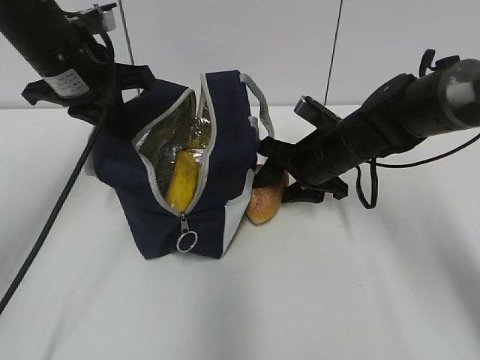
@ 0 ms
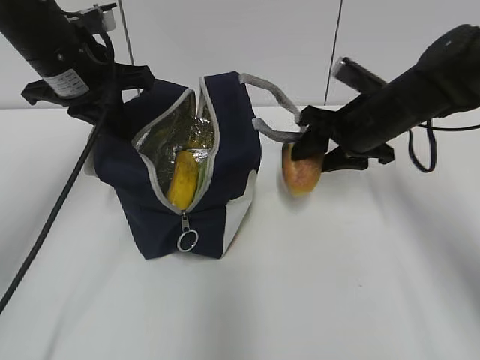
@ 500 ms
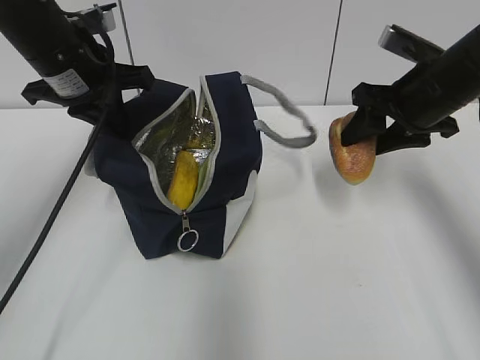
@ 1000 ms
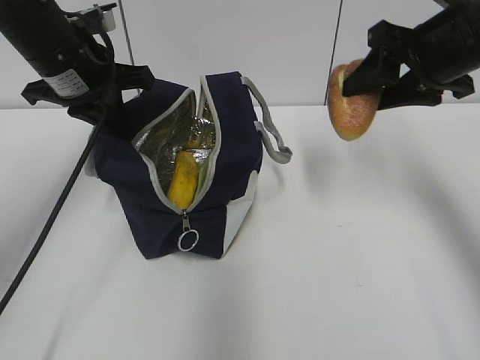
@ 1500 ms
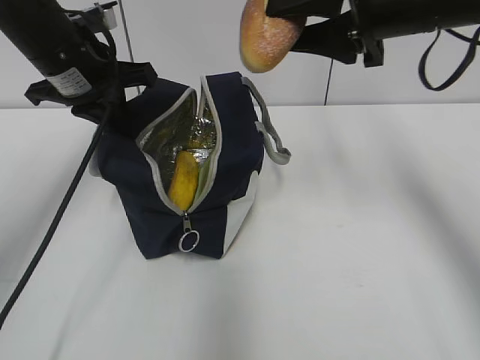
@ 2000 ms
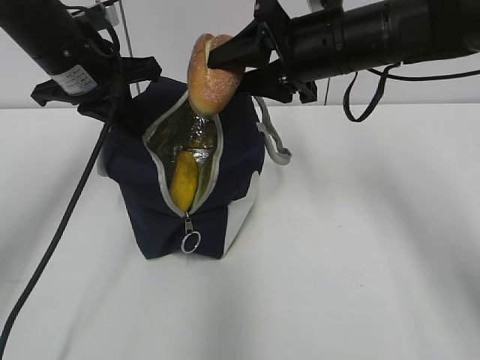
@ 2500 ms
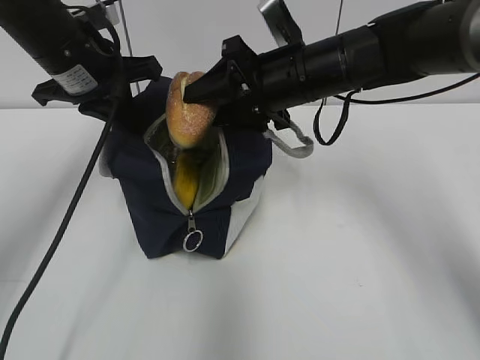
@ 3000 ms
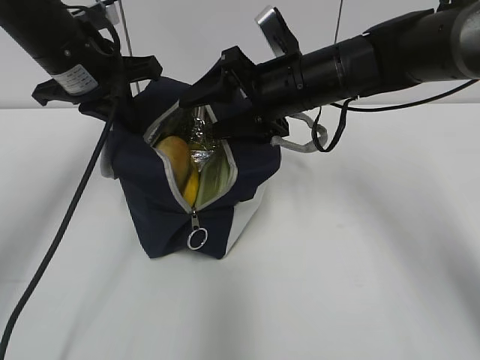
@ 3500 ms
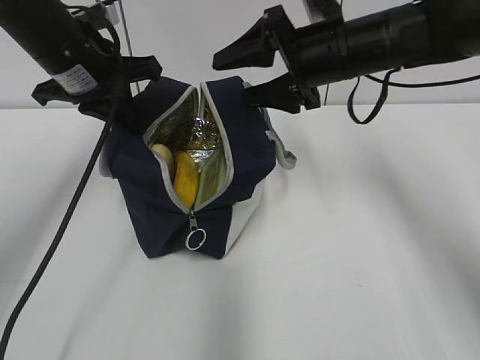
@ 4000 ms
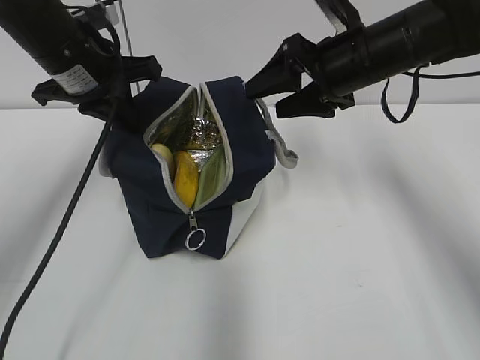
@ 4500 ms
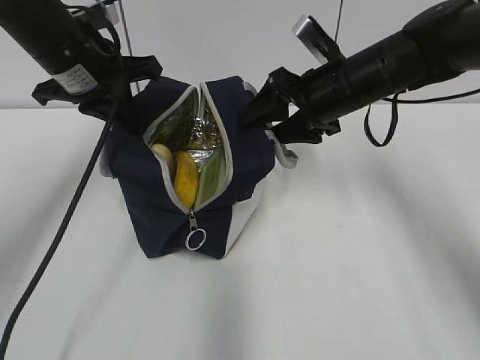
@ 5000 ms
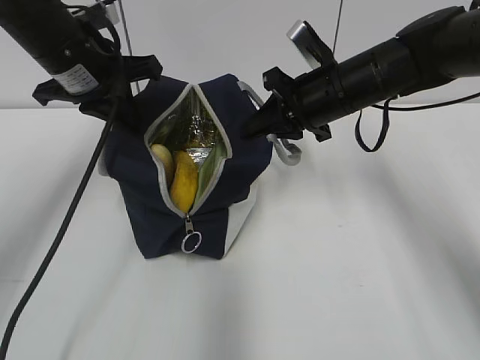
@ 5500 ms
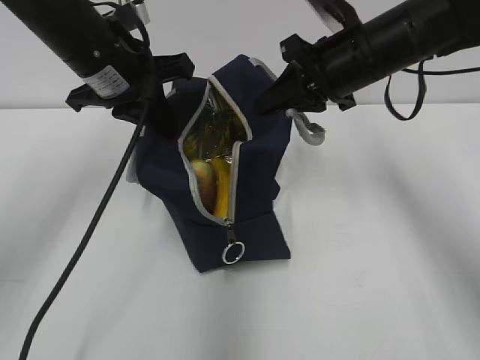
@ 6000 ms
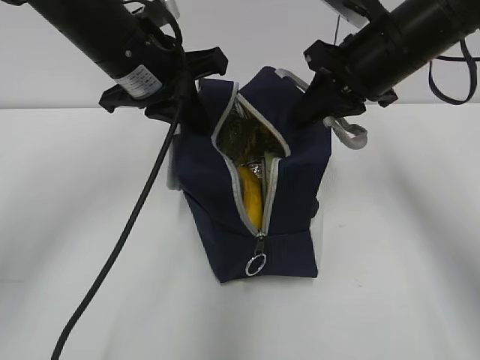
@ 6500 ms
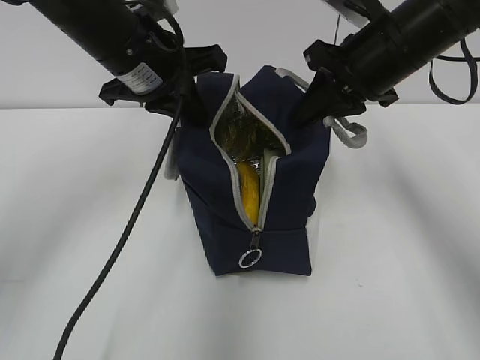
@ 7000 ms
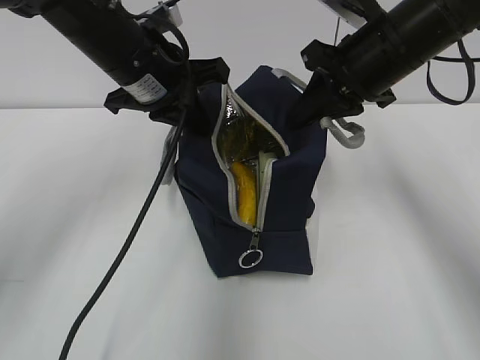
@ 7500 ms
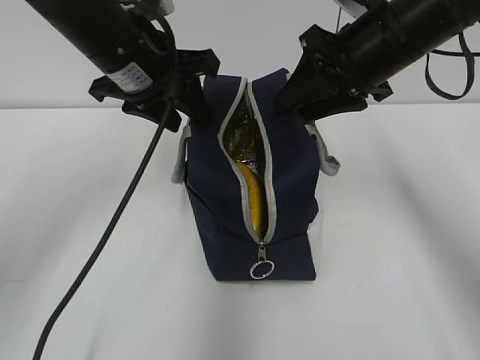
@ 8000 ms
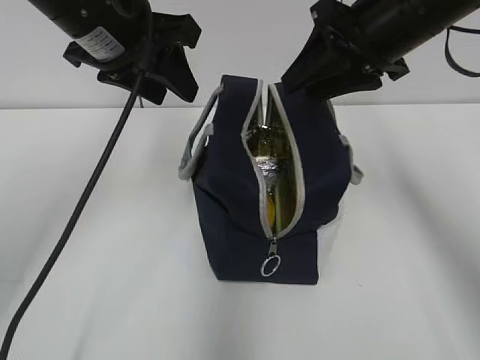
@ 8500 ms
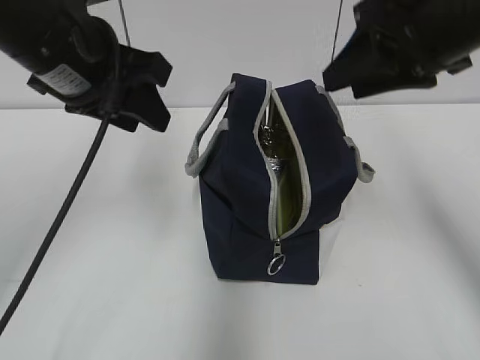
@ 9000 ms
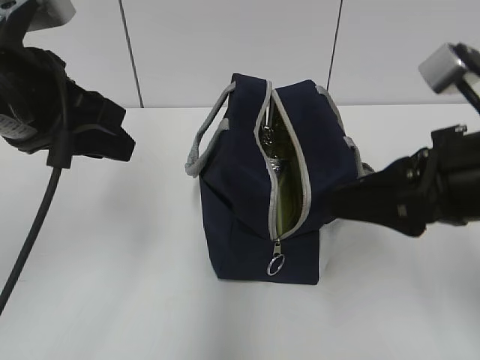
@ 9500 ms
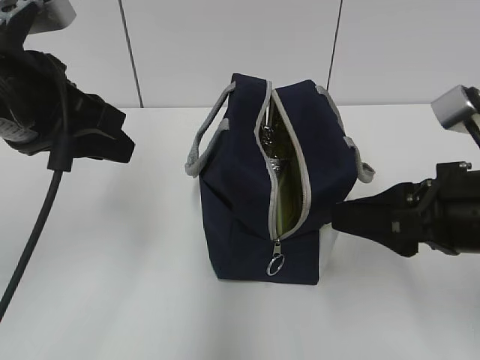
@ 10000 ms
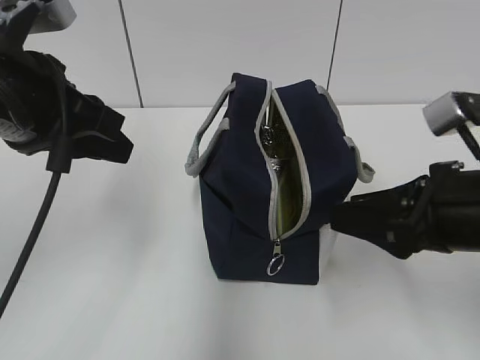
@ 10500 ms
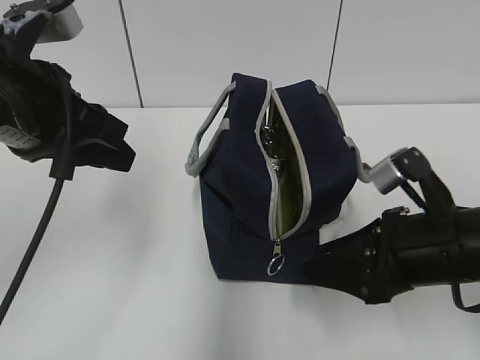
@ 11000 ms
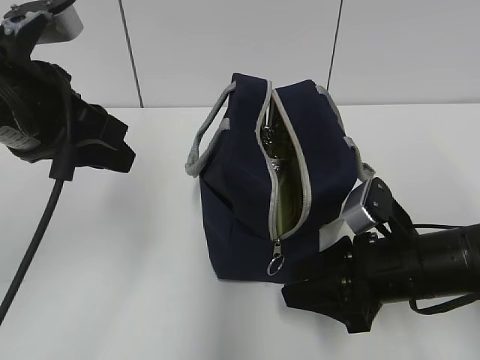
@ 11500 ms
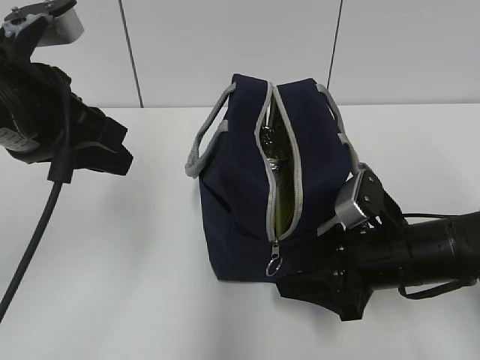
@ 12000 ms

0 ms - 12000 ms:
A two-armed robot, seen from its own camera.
Step, 4000 ms - 5000 ms: Grab the lunch bag with your right hand.
Step, 5500 ms - 7500 ms: Move the lunch bag to the right.
0 ms - 2000 ms: The right gripper moves upward, about 20 cm.
2000 ms - 4000 ms: The right gripper travels downward by about 5 cm.
4000 ms - 6000 ms: The right gripper closes its fingers.
6000 ms - 8000 ms: The right gripper opens; the left gripper opens up.
8000 ms - 10000 ms: The left gripper goes approximately 15 cm backward and to the left. Meanwhile the right gripper heads backward and downward, covering some 15 cm.
10000 ms - 12000 ms: The right gripper moves downward and forward, some 15 cm.

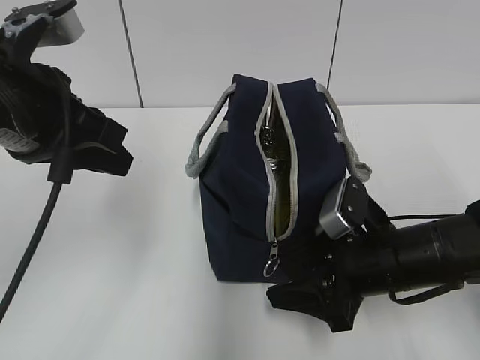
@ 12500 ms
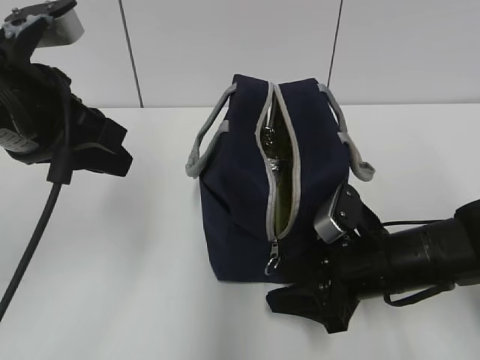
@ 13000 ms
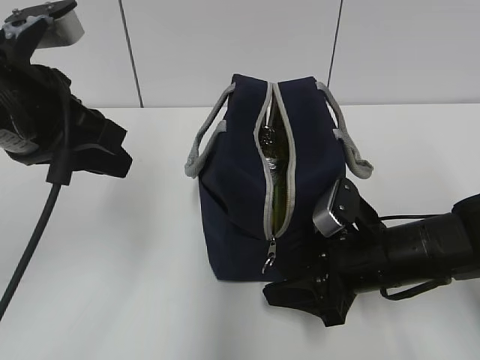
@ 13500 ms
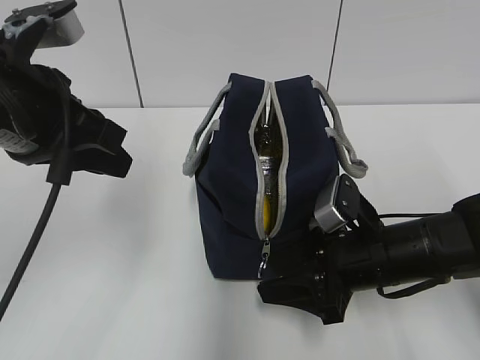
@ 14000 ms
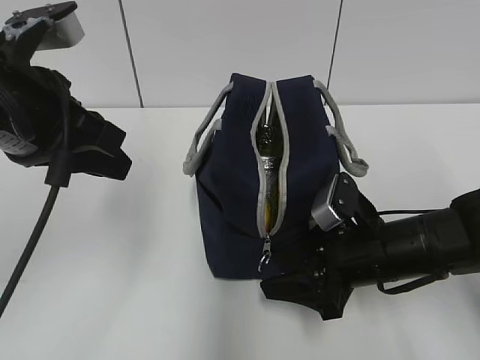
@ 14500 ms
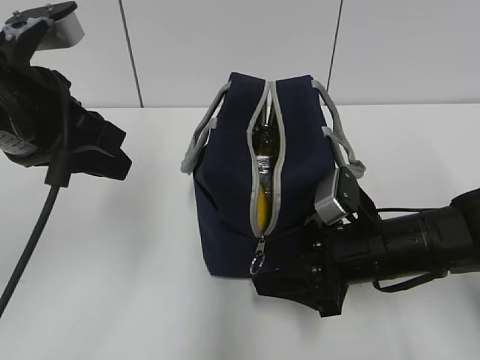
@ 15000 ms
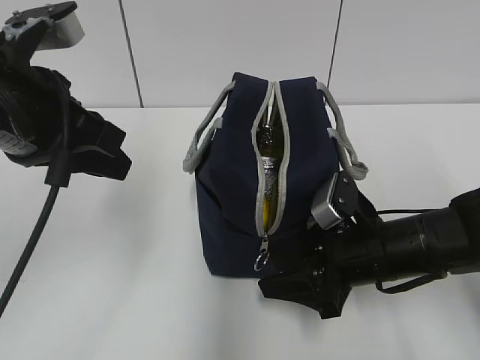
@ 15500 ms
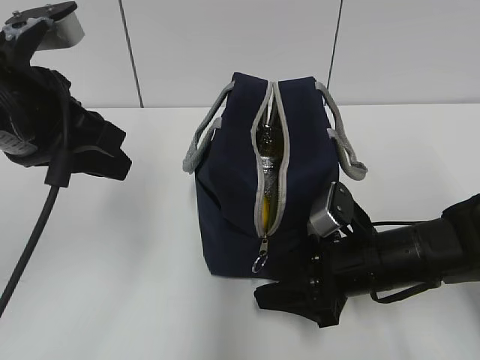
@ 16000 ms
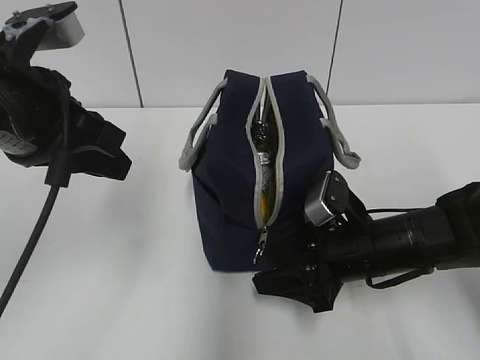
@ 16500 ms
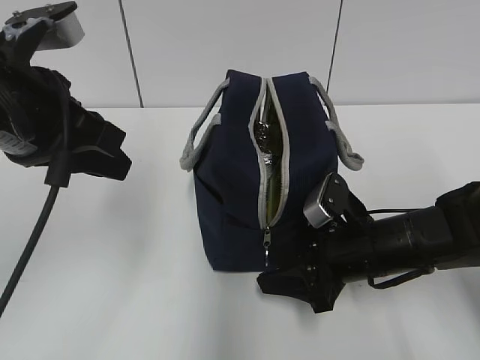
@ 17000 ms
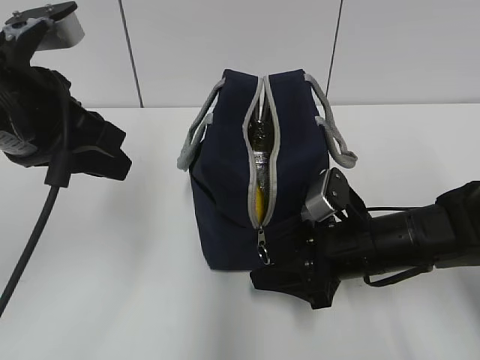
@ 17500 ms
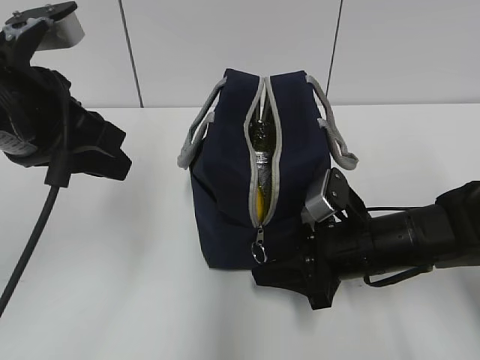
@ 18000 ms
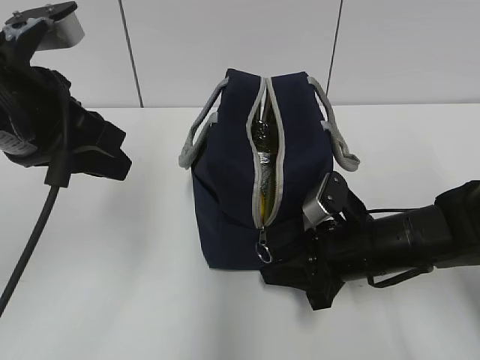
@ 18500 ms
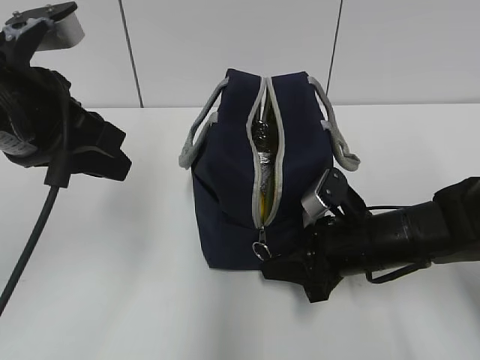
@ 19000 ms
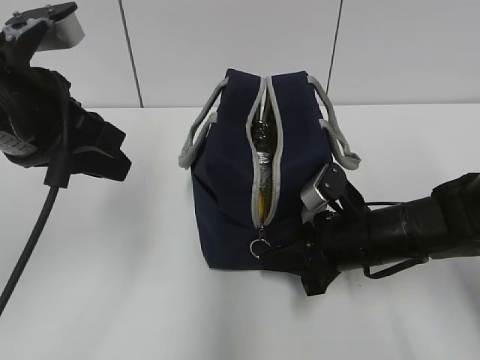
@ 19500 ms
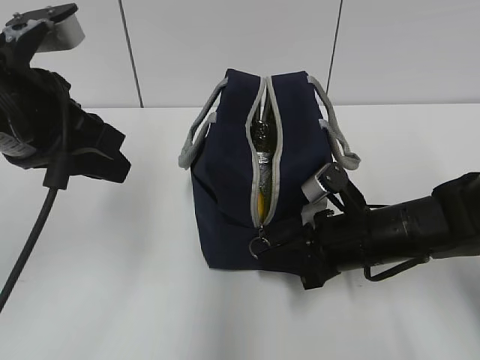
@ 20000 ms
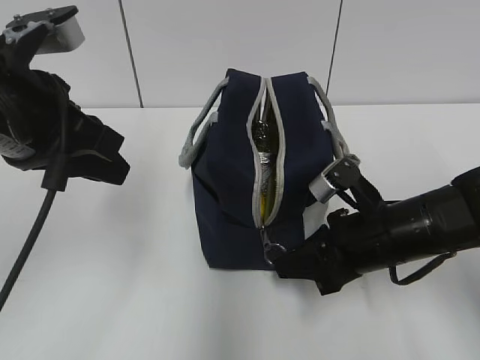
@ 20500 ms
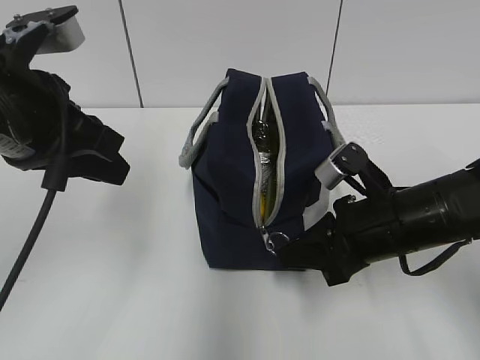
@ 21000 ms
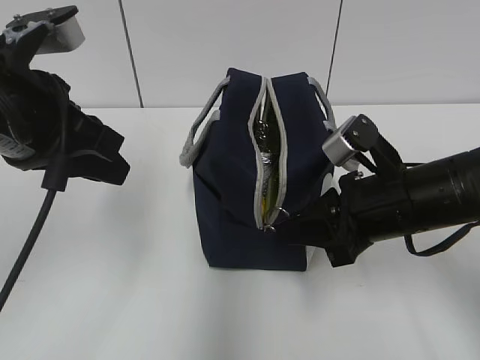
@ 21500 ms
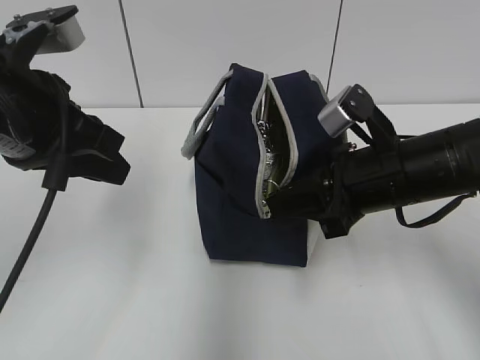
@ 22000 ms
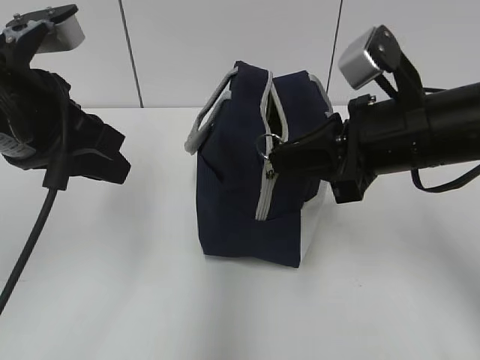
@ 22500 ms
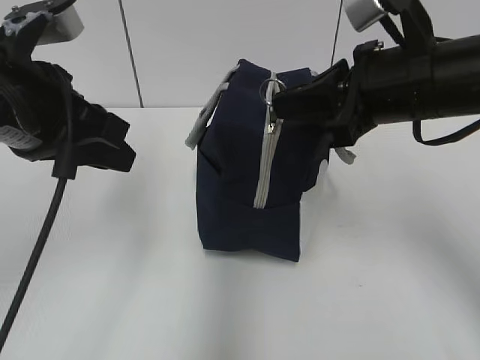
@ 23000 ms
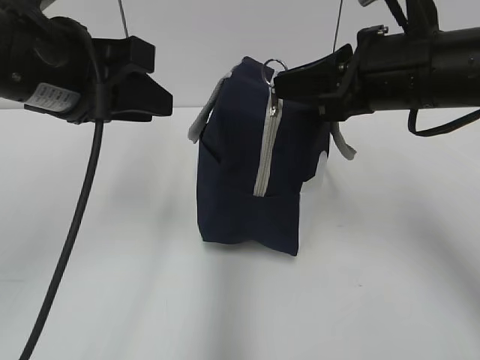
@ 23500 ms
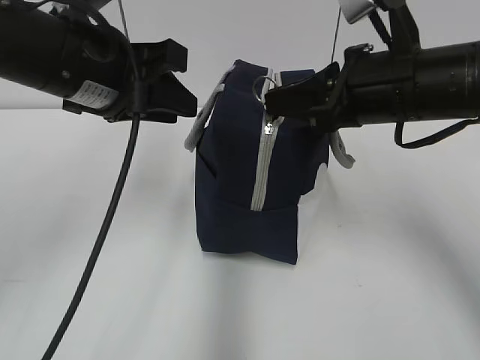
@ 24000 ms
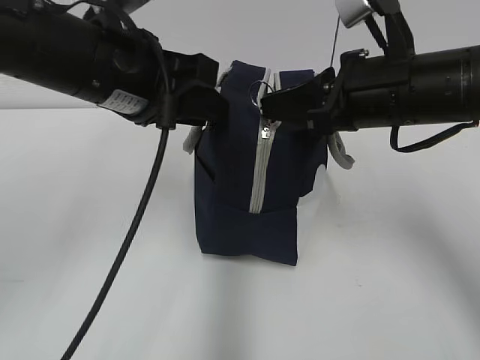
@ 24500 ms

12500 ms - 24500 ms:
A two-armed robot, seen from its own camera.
12500 ms - 16500 ms: There are only small adjustments of the grippers.
16500 ms - 18500 ms: The right gripper closes up.
18500 ms - 20500 ms: There are only small adjustments of the grippers.
20500 ms - 22500 ms: The right gripper travels upward by roughly 15 cm.
22500 ms - 24500 ms: The left gripper is displaced to the right by about 5 cm.

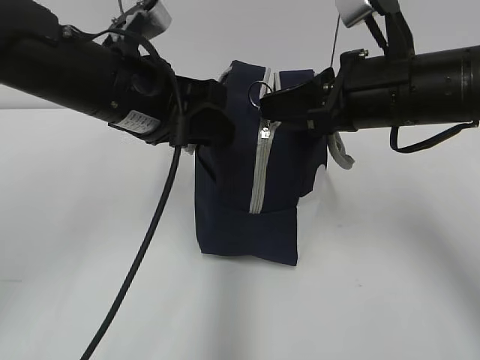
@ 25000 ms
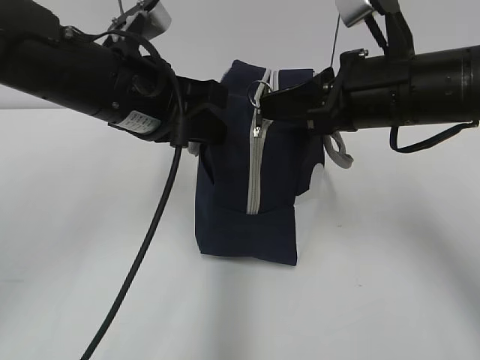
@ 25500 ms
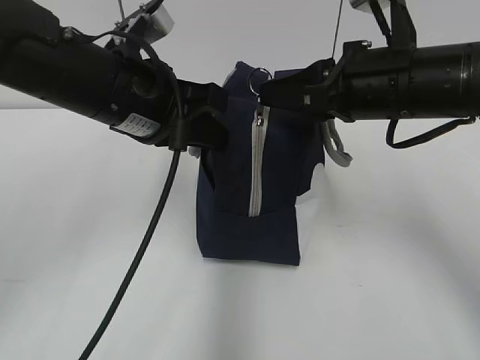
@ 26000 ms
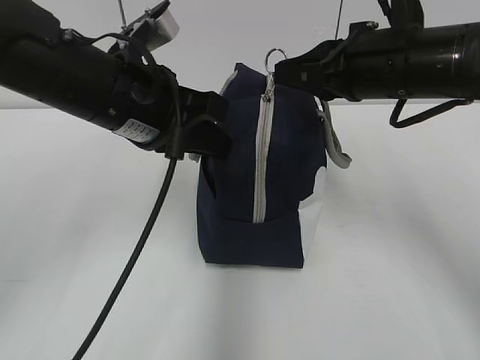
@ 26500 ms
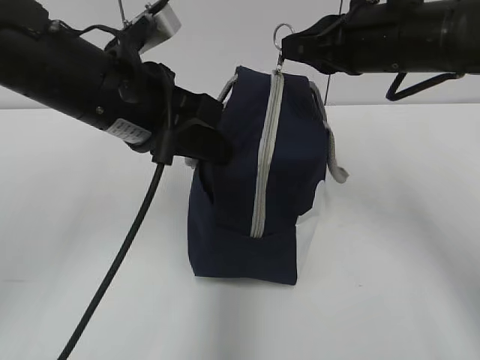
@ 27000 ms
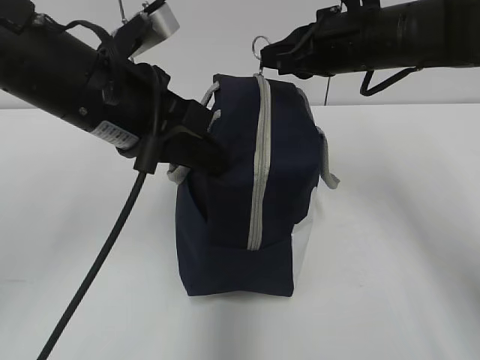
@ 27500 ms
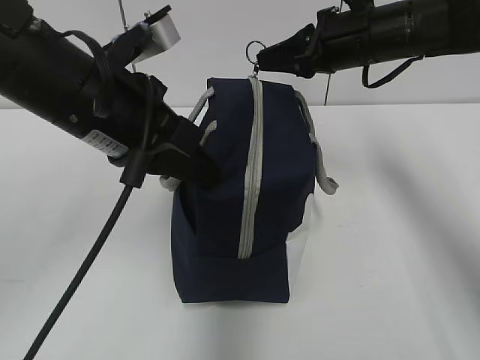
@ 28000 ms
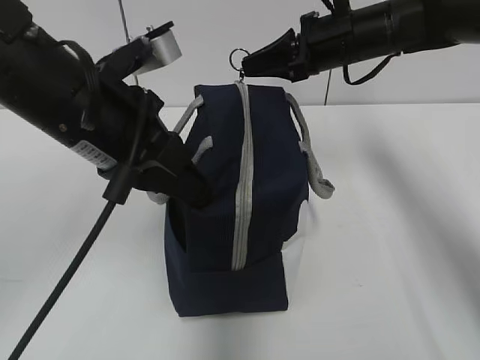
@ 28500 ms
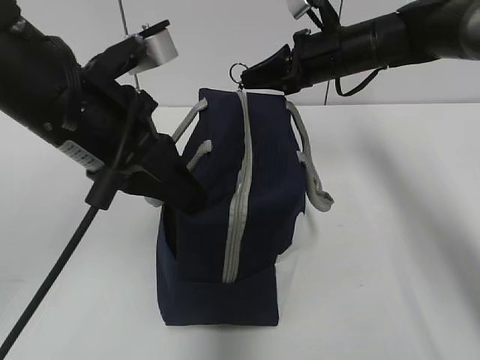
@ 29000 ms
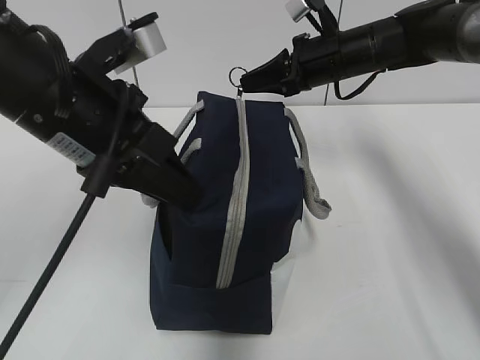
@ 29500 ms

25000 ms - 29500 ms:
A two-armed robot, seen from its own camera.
25000 ms - 27000 ms: The right gripper moves roughly 5 cm; the left gripper closes its fingers.
27000 ms - 29500 ms: The right gripper is displaced forward and downward by approximately 15 cm.
